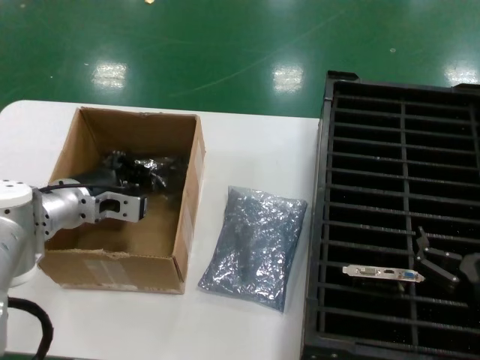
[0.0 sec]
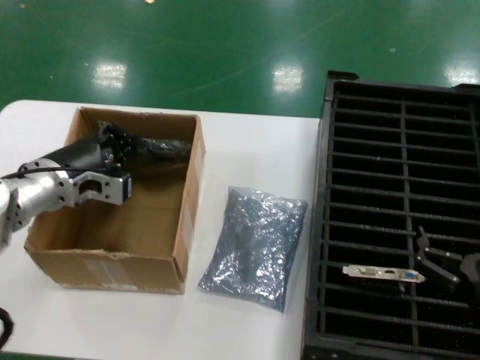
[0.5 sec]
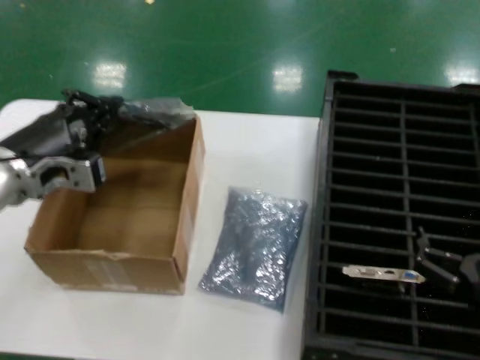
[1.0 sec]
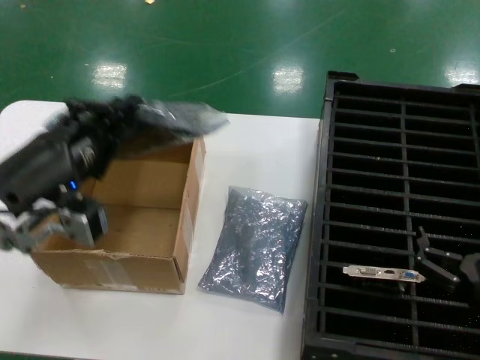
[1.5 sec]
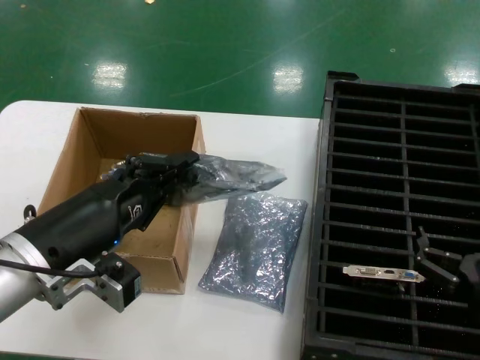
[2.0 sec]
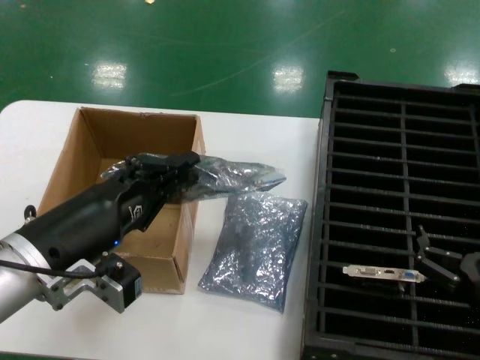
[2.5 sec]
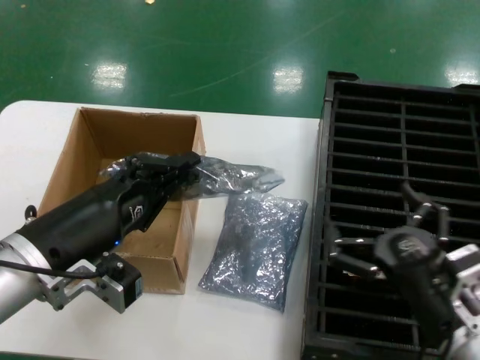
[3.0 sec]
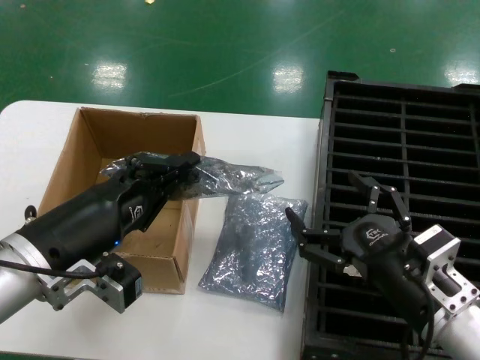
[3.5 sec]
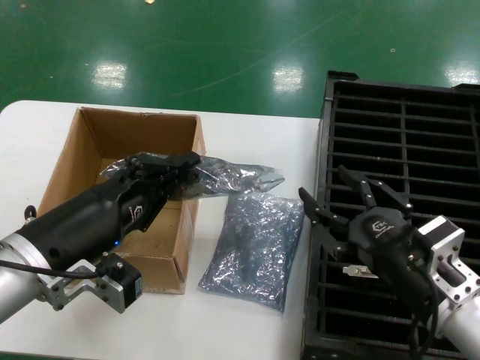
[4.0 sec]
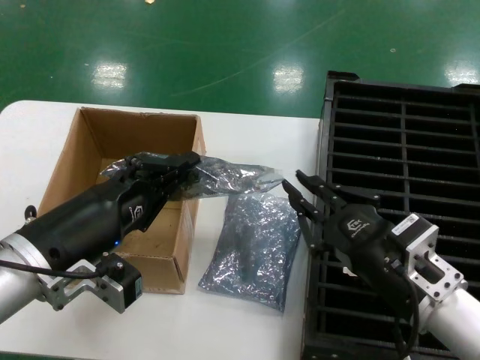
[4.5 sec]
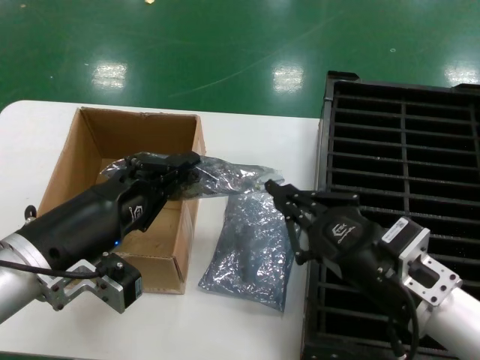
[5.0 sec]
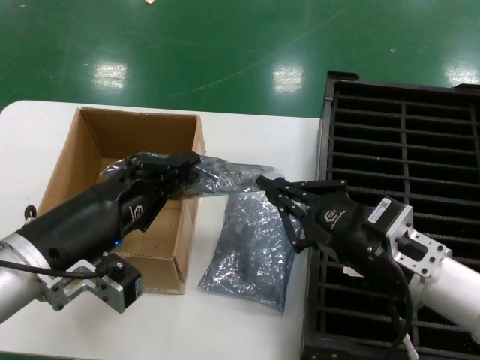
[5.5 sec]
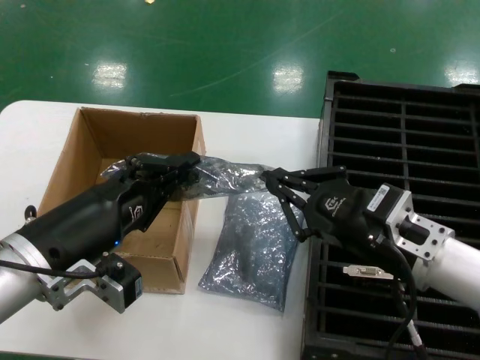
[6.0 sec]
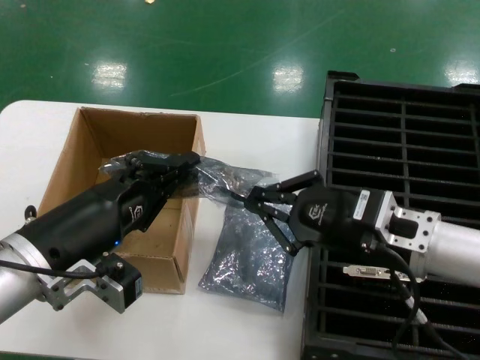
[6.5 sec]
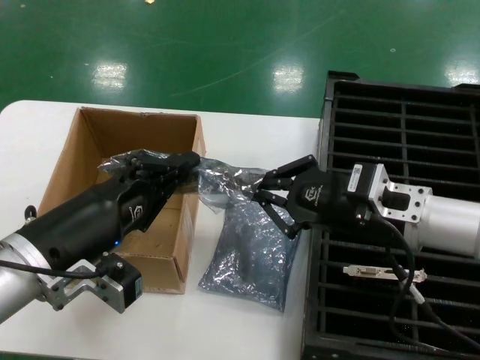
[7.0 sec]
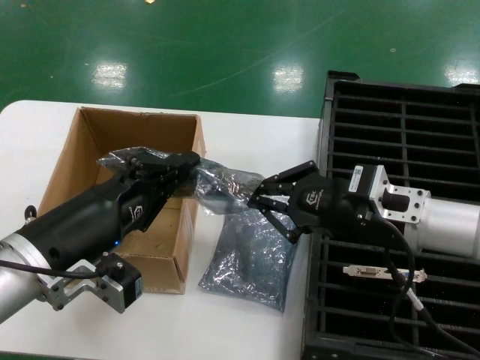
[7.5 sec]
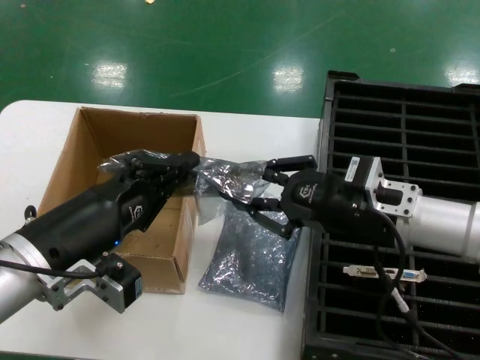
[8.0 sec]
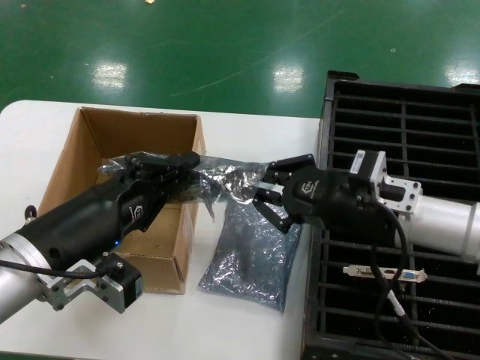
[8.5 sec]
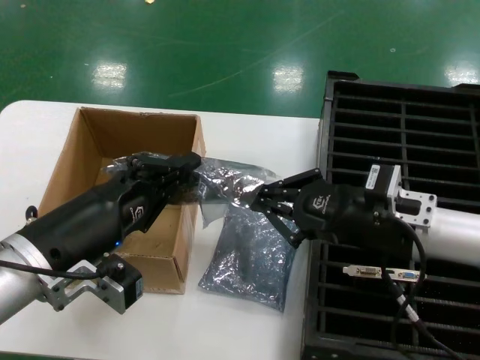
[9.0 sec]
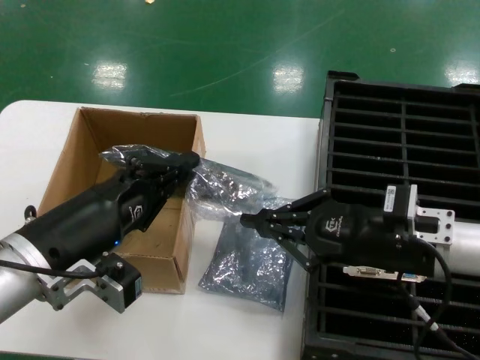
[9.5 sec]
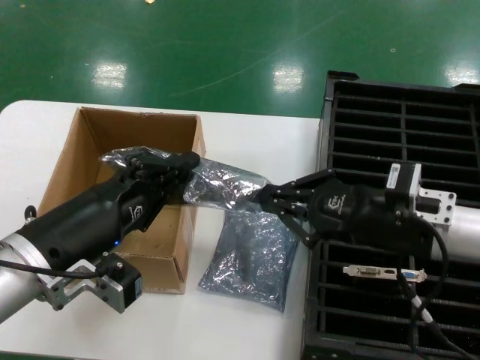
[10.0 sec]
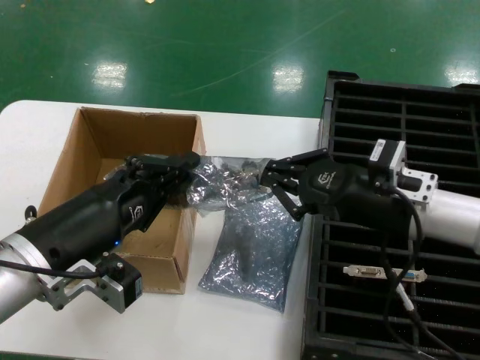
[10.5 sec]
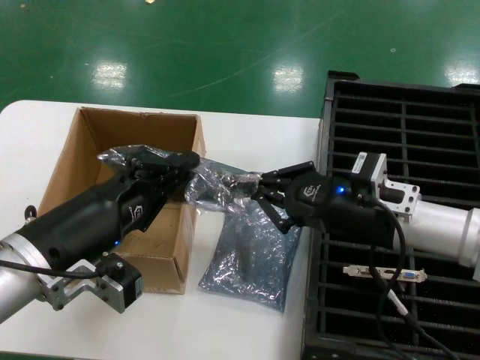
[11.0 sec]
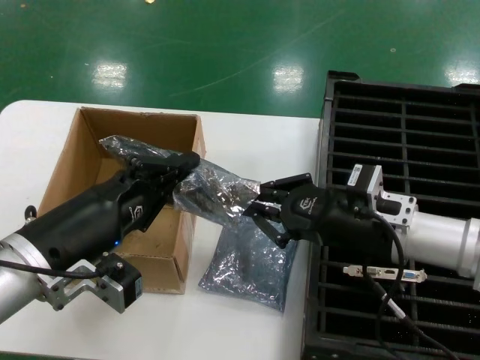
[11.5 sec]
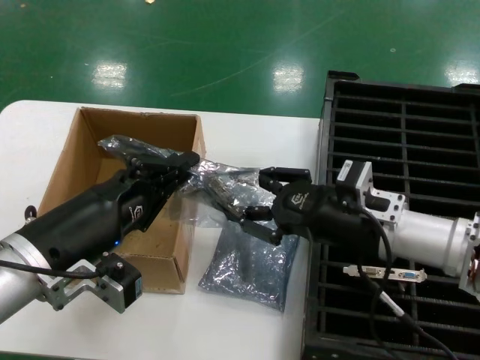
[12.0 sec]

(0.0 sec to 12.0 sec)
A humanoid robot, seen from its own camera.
Task of the whole recording: take out graphics card from box remove packaging put into black container.
Step, 0.0 sec - 2.0 sec: Lift the bag.
0.0 sec - 2.0 sec: The left hand travels backward by some 20 cm.
2.0 sec - 4.0 sec: The right hand is displaced to the left by some 5 cm.
4.0 sec - 6.0 sec: The right hand goes approximately 5 cm forward and upward.
6.0 sec - 8.0 sec: The right hand goes some 5 cm forward.
8.0 sec - 10.0 sec: The hands move only a little.
10.0 sec - 12.0 sec: The right hand shifts by roughly 5 cm.

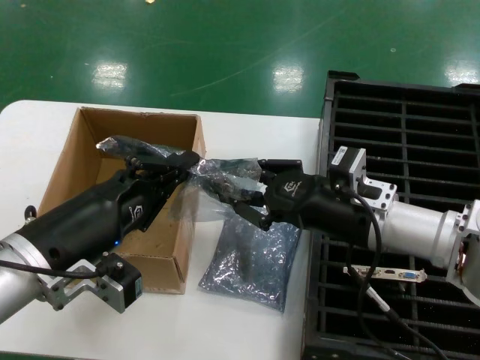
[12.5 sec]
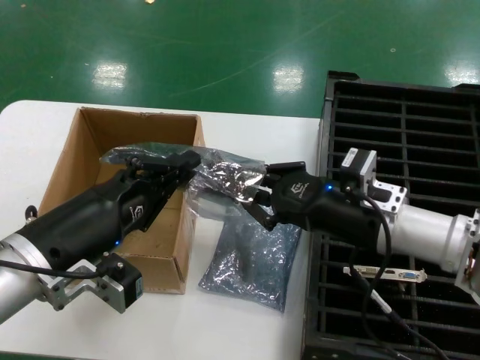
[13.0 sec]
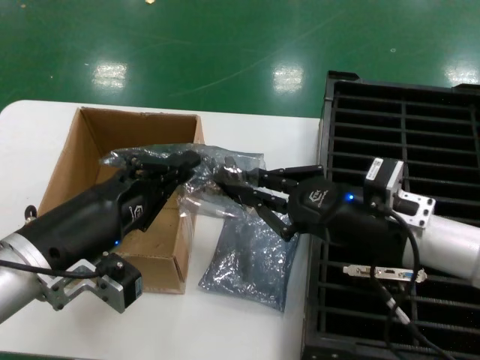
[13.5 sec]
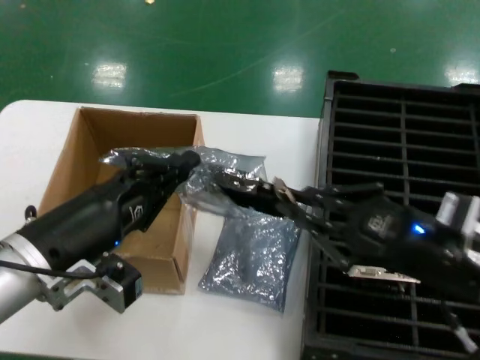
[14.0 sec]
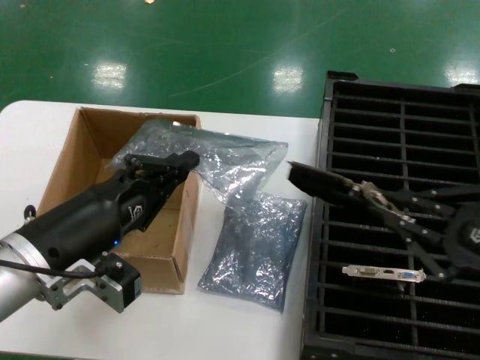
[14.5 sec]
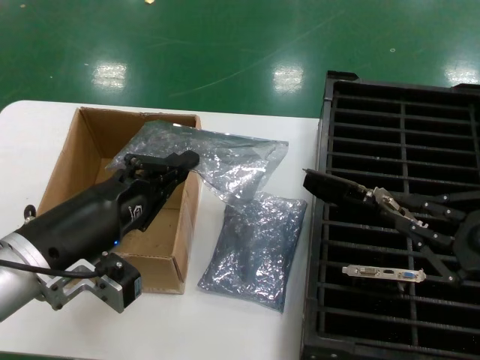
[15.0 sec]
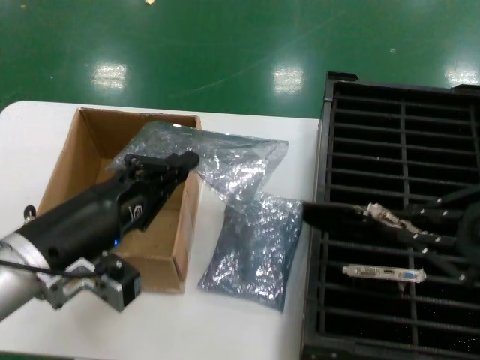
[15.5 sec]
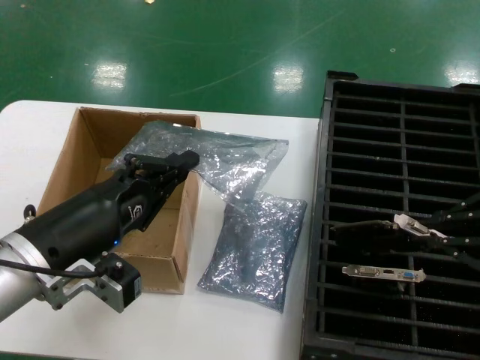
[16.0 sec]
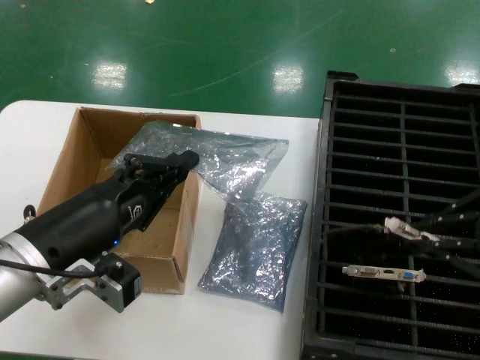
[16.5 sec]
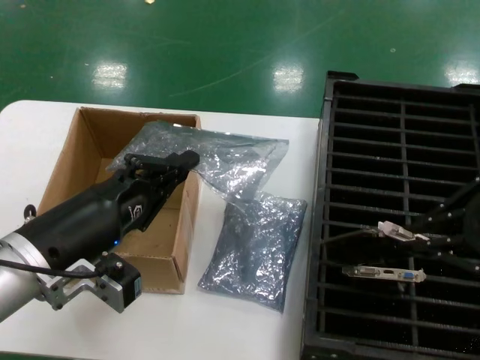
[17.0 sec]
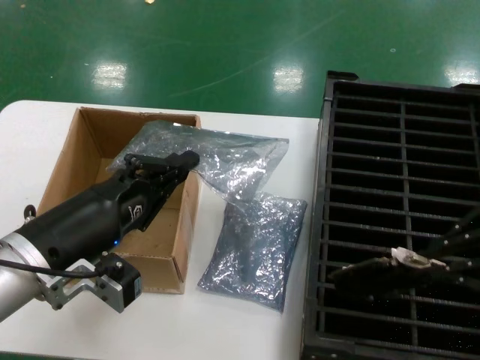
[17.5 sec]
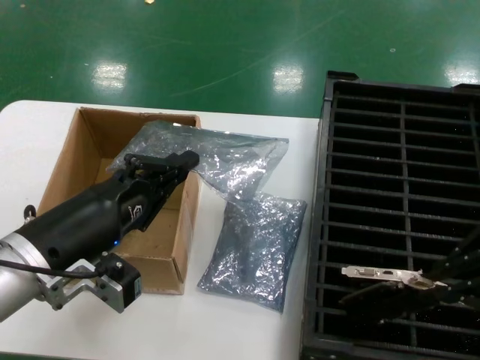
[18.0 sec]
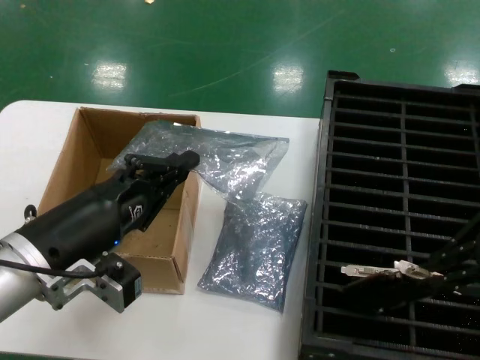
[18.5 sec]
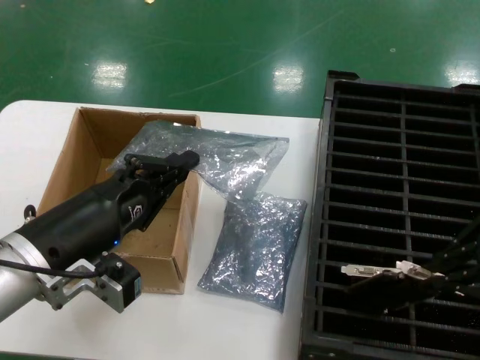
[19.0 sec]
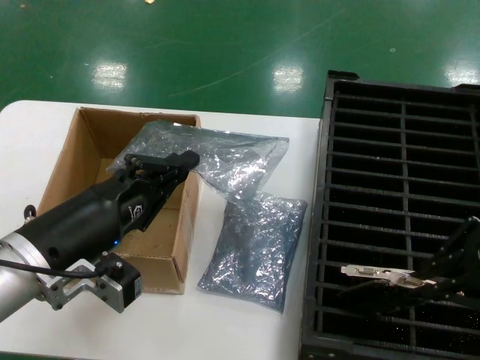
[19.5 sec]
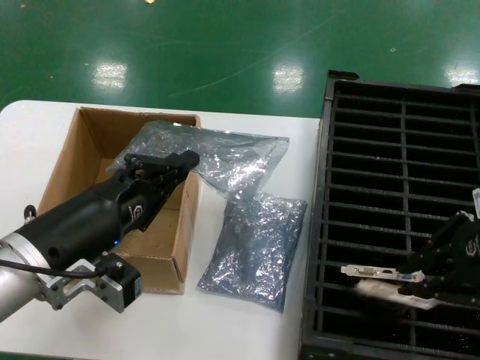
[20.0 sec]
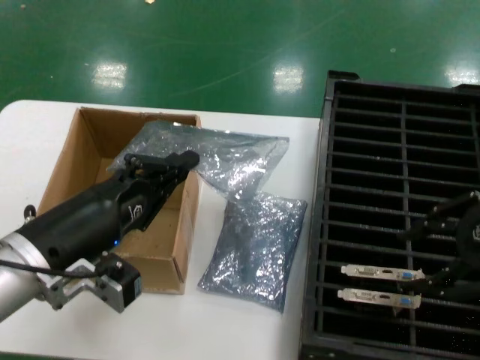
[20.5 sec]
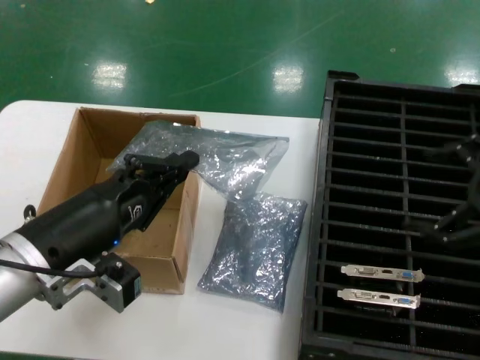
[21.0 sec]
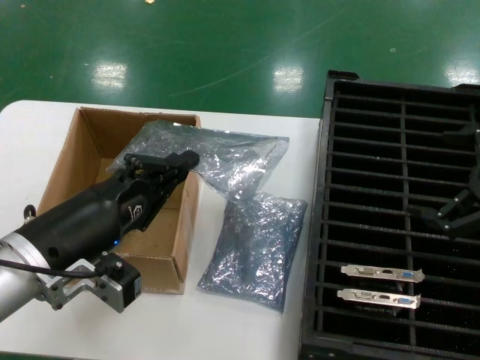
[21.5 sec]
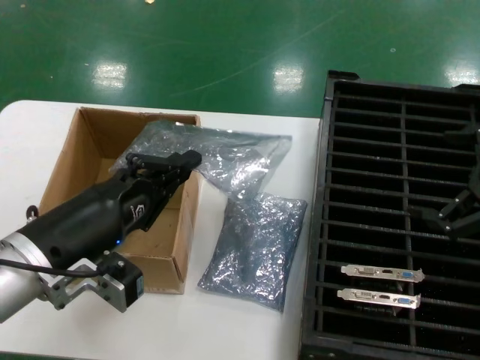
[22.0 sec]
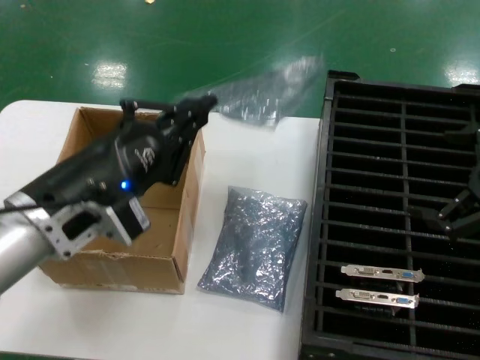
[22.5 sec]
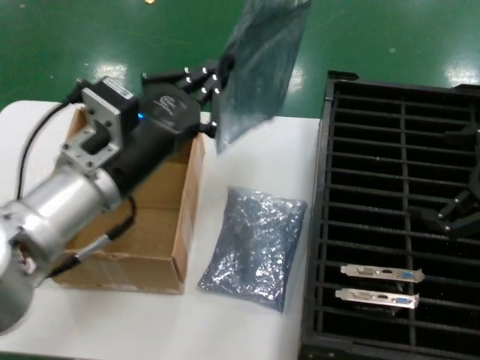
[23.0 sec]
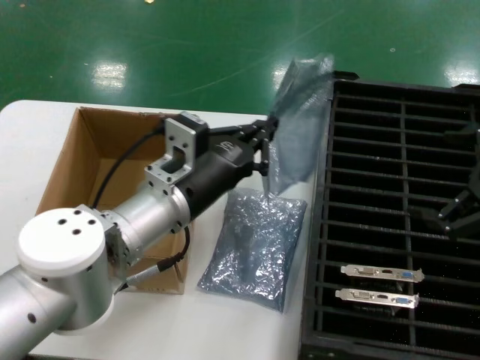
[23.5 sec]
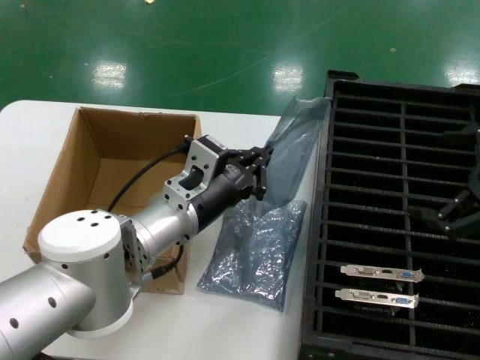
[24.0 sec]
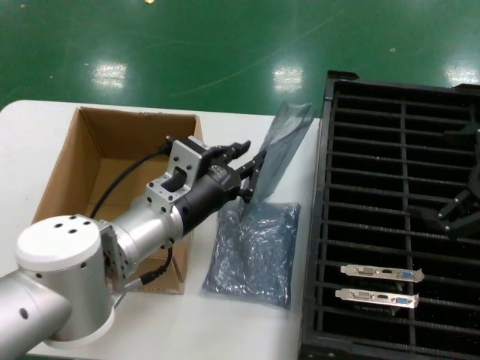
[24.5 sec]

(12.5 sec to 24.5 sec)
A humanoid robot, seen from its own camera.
Task of the whole recording: take out graphics card from box remove packaging put into black container.
Step, 15.0 sec - 20.5 sec: Place the hard disk in the hard disk enclosure.
12.5 sec - 14.5 sec: The right hand heads backward and to the right, covering about 25 cm.
14.5 sec - 16.5 sec: The right hand travels upward by approximately 10 cm.
16.5 sec - 18.5 sec: The hands make only small movements.
18.5 sec - 20.5 sec: There are only small adjustments of the hands.
20.5 sec - 22.5 sec: The right hand moves to the right, some 5 cm.
22.5 sec - 24.5 sec: The left hand shifts about 15 cm forward, to the right and downward.

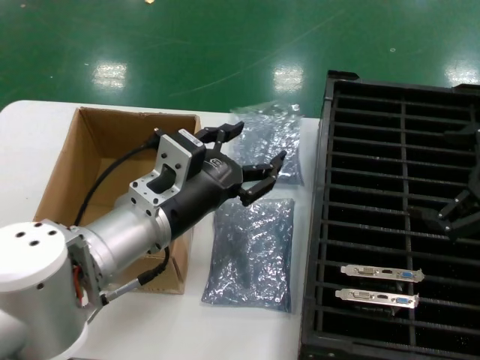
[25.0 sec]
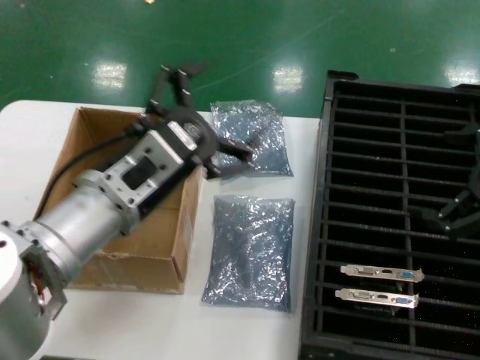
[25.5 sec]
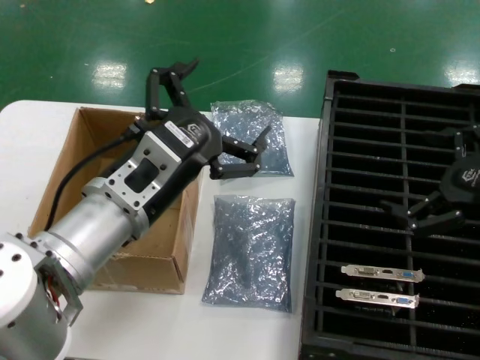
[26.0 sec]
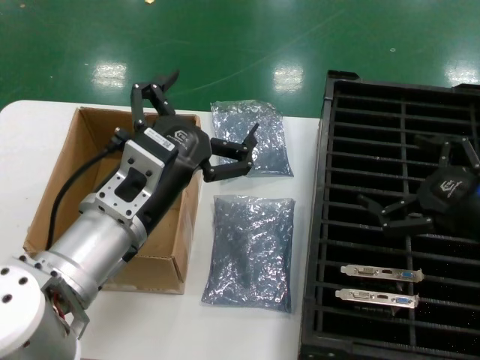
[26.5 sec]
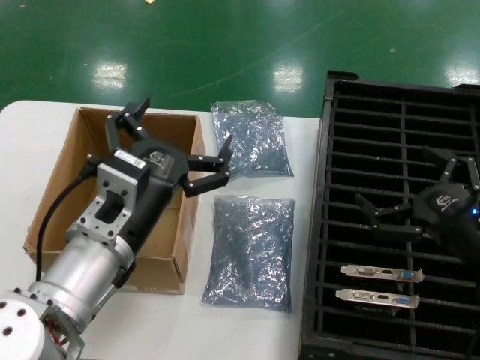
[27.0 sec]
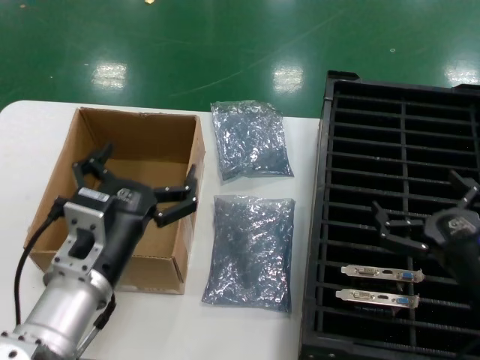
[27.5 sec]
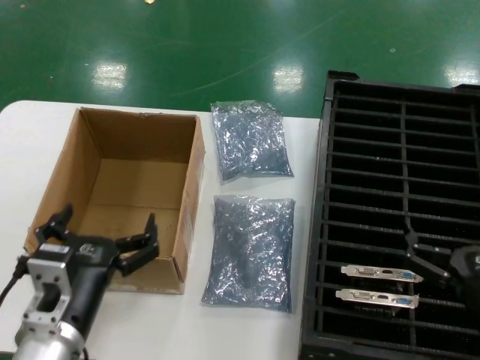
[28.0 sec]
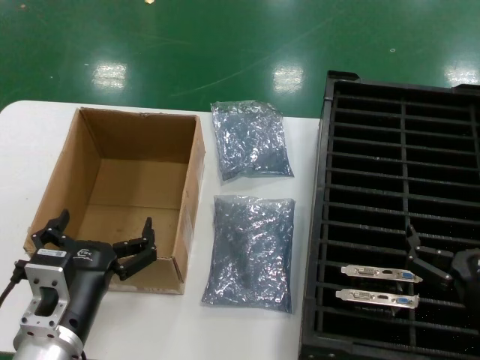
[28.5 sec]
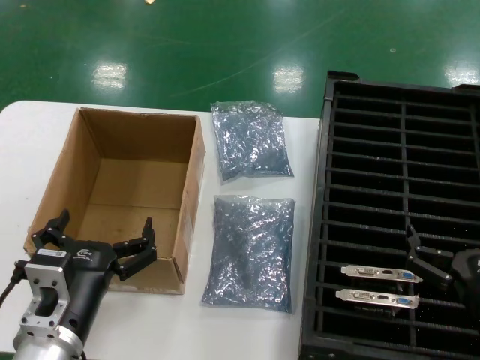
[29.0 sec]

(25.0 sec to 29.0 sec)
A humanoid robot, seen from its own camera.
Task of the whole recording: take out graphics card from box remove packaging put into black container.
25.0 sec - 27.0 sec: The right hand travels downward and to the left by roughly 15 cm.
27.0 sec - 29.0 sec: The right hand travels downward and backward by roughly 10 cm. The left hand is displaced downward by roughly 10 cm.
